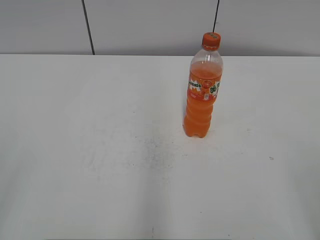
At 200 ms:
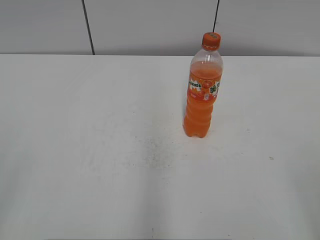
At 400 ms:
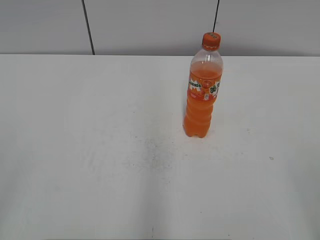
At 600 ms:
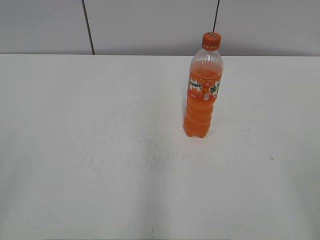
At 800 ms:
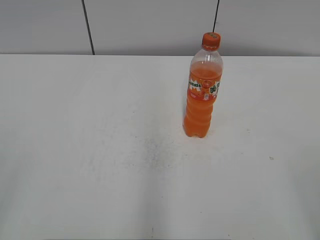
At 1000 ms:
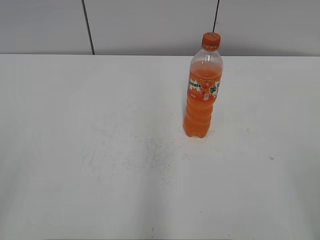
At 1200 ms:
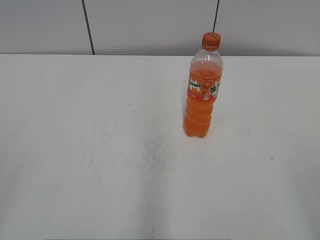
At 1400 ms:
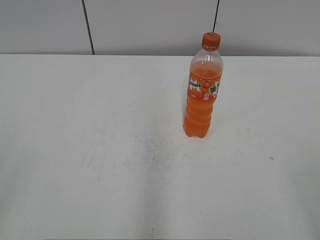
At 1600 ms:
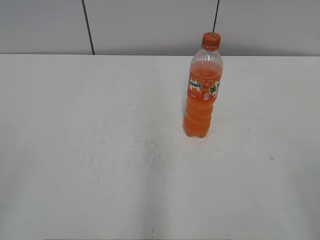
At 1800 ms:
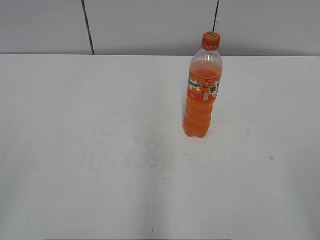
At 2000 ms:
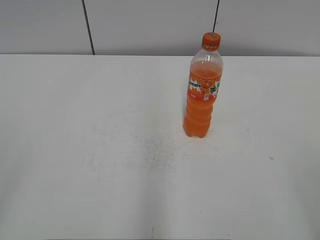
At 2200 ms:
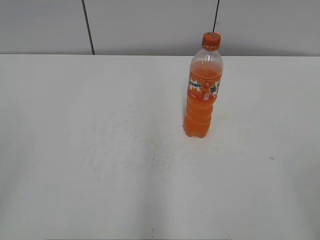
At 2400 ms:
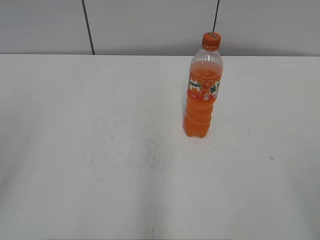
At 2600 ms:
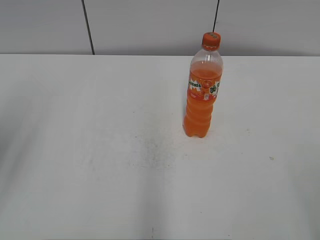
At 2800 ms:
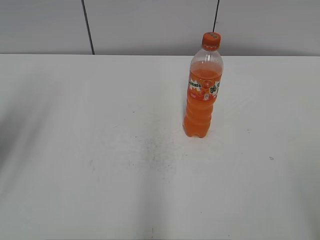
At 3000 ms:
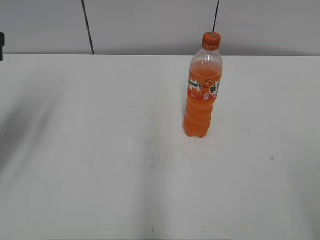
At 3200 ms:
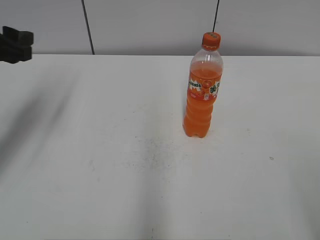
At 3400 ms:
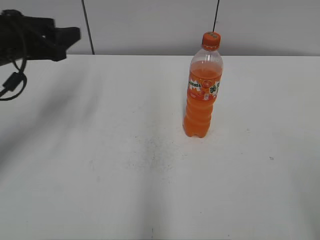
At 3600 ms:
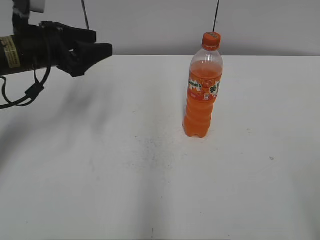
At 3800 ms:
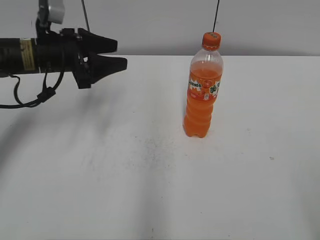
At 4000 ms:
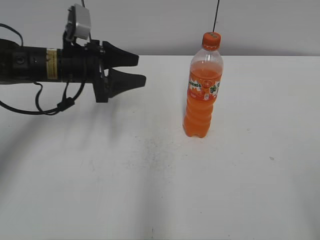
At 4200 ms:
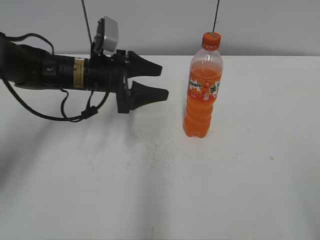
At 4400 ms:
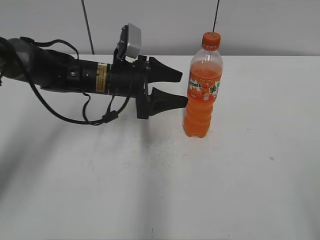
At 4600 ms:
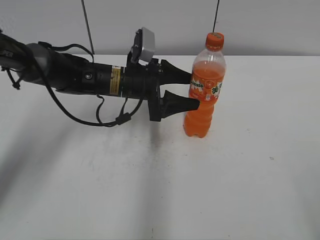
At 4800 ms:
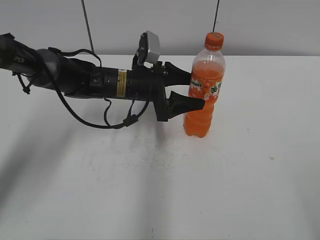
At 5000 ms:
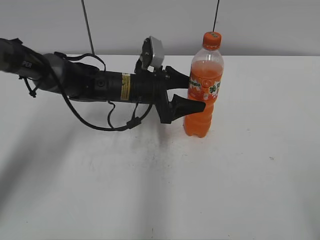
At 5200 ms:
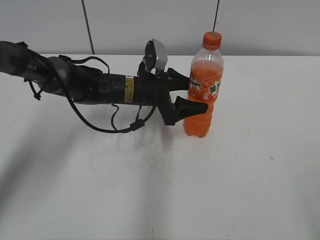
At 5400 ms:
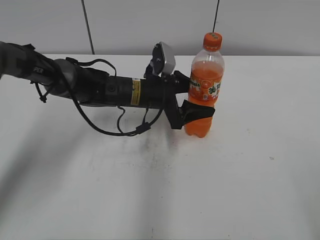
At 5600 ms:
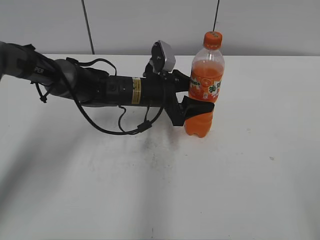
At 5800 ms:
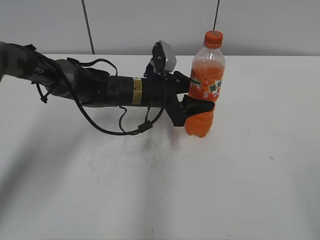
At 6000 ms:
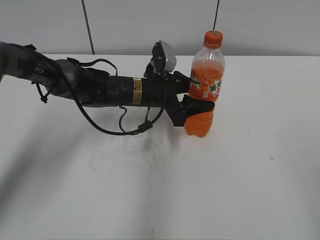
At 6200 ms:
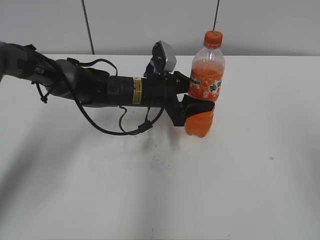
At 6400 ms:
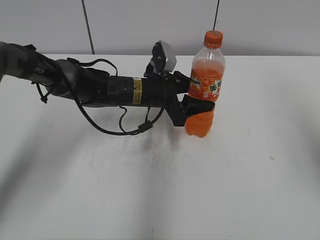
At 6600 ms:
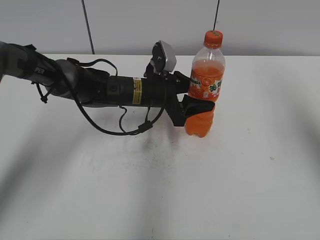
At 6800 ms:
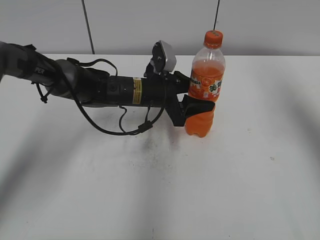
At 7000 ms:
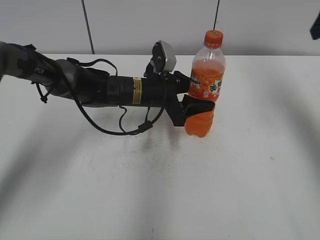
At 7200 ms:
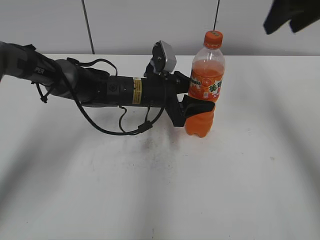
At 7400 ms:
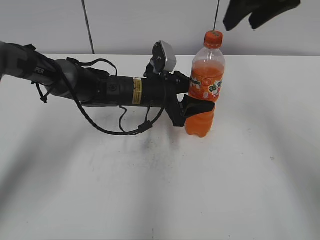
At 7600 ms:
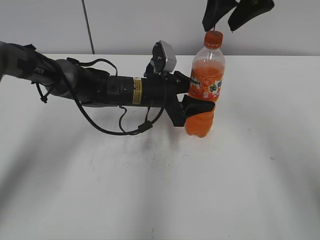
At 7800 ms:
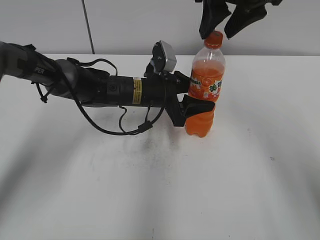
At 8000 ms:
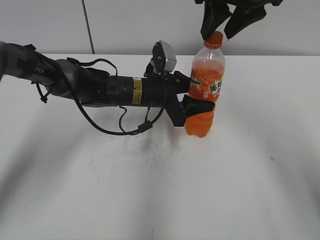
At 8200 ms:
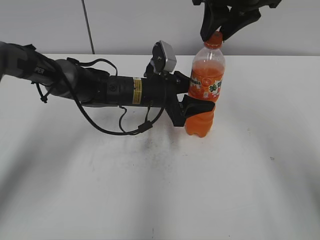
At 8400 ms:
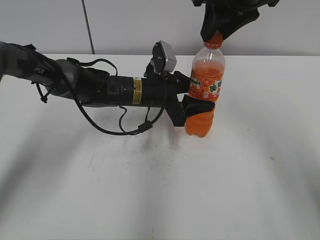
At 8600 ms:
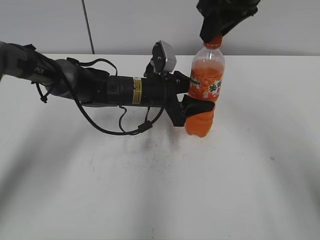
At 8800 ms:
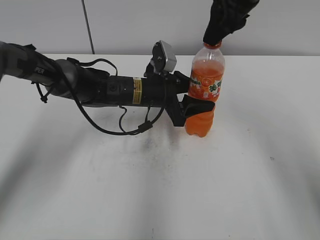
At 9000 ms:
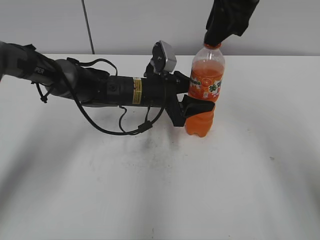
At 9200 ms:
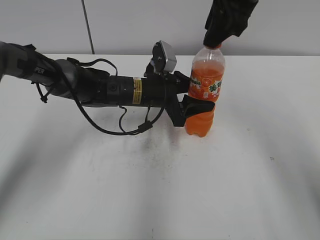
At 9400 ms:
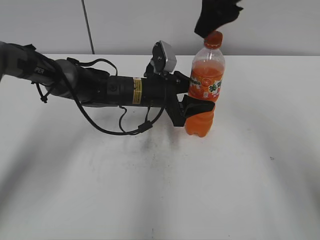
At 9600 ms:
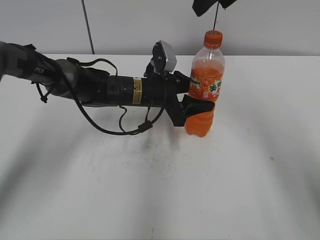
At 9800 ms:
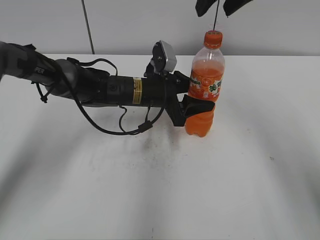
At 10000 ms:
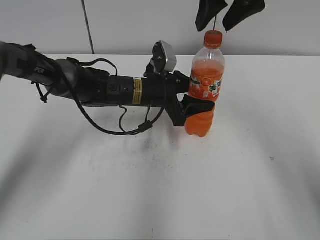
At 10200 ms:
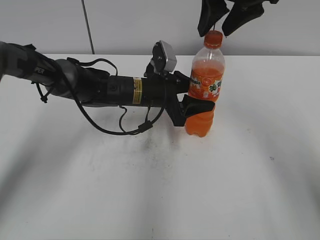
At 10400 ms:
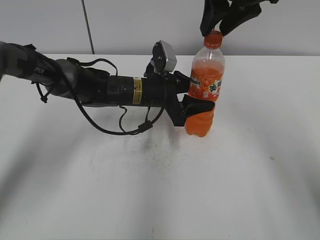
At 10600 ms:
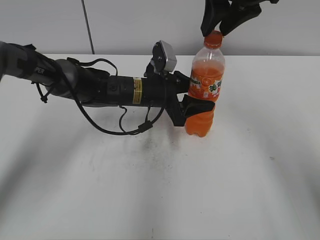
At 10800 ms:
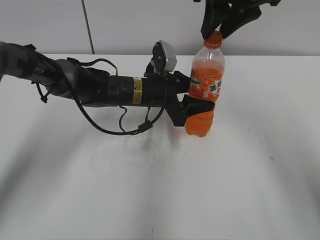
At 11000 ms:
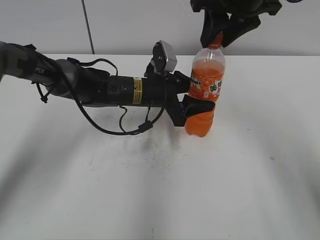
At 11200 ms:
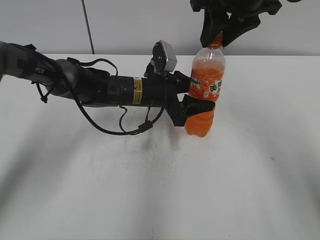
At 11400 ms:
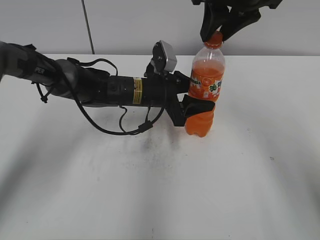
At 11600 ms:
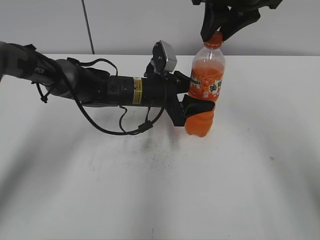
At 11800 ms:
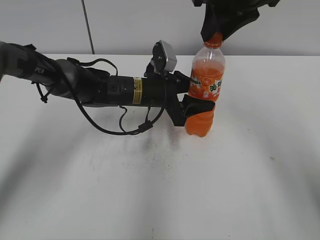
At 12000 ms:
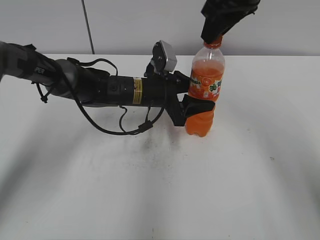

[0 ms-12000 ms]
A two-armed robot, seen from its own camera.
Step, 0 ms to 5600 ms: Grab the Mirinda with the left hand.
1600 ms to 3000 ms: The left gripper travels forward by approximately 25 cm, and closes up.
3000 ms to 4400 ms: The left gripper shifts about 25 cm to the right, forward and downward, and opens.
4400 ms to 6000 ms: The left gripper travels to the right by roughly 5 cm, and closes up.
6000 ms to 7600 ms: The right gripper is displaced forward and to the left by about 40 cm.
7600 ms to 9000 ms: The right gripper closes up.
9000 ms to 10400 ms: The right gripper opens and closes again.

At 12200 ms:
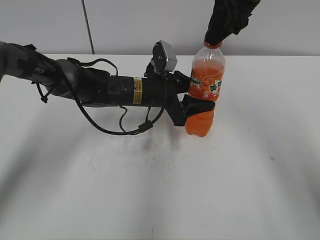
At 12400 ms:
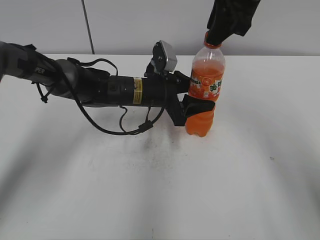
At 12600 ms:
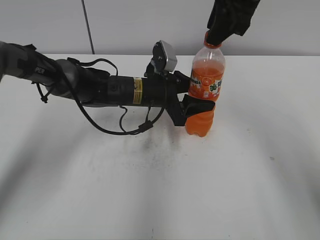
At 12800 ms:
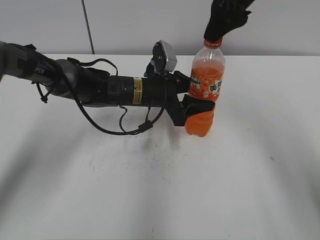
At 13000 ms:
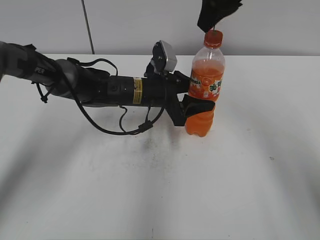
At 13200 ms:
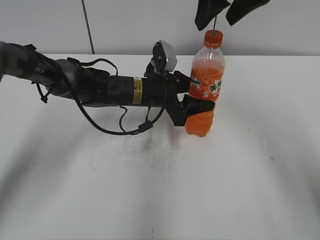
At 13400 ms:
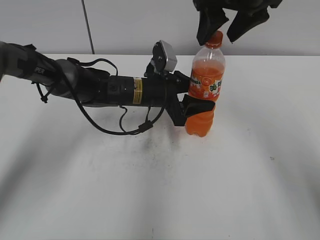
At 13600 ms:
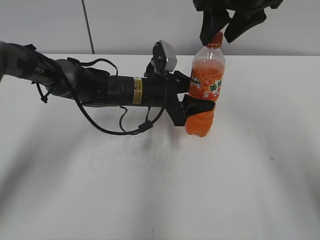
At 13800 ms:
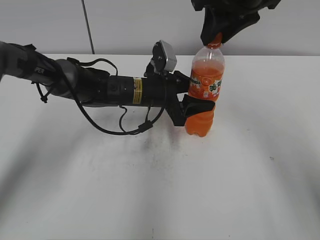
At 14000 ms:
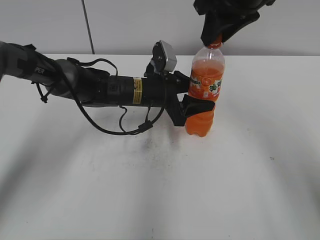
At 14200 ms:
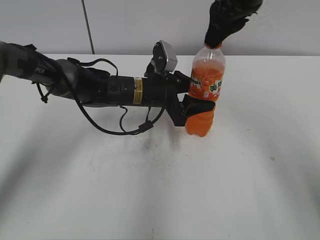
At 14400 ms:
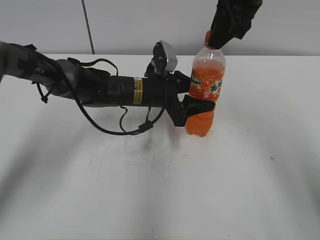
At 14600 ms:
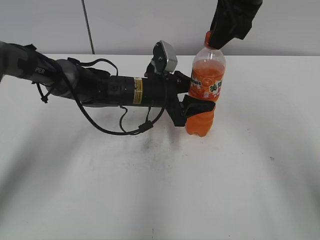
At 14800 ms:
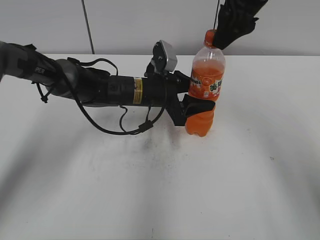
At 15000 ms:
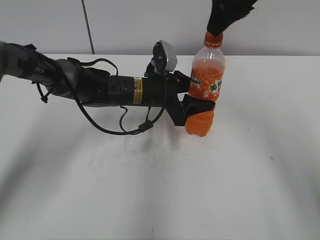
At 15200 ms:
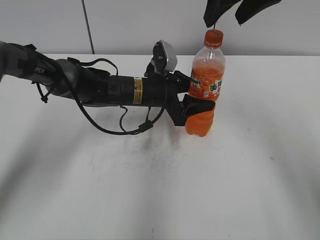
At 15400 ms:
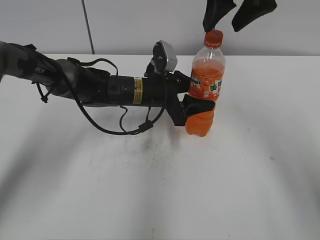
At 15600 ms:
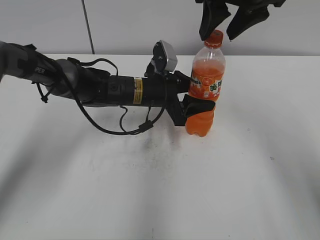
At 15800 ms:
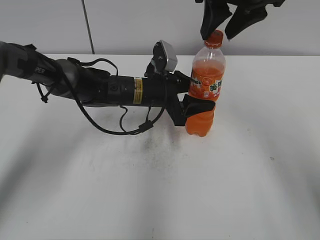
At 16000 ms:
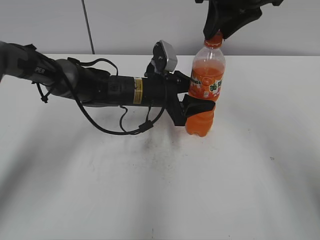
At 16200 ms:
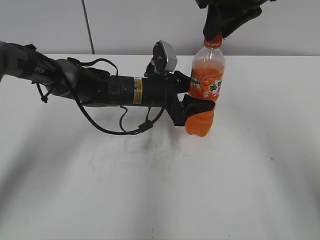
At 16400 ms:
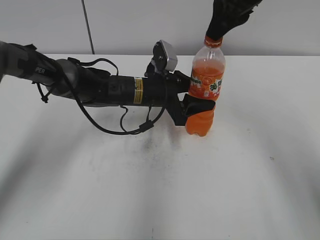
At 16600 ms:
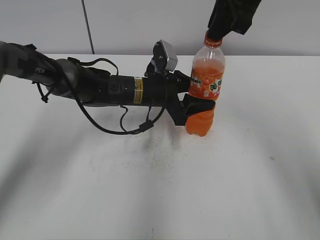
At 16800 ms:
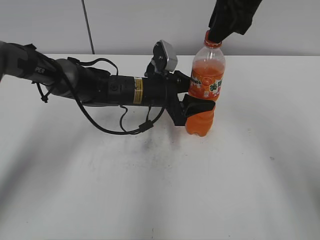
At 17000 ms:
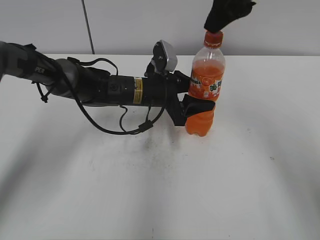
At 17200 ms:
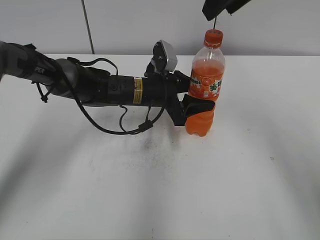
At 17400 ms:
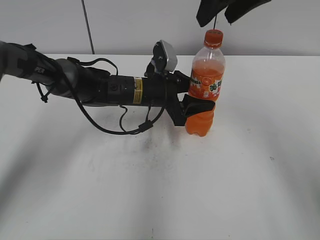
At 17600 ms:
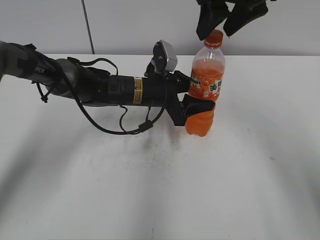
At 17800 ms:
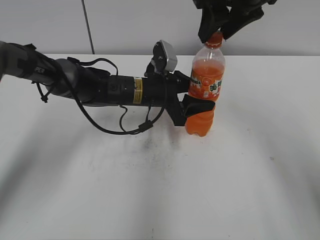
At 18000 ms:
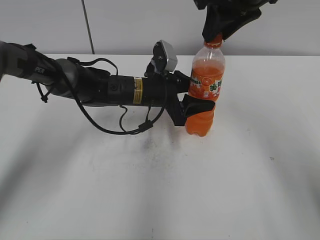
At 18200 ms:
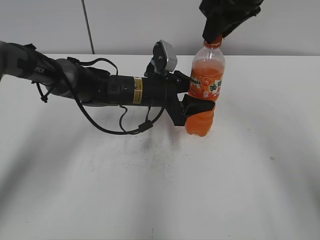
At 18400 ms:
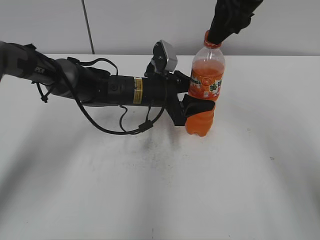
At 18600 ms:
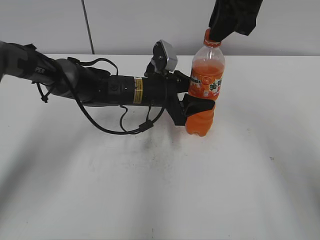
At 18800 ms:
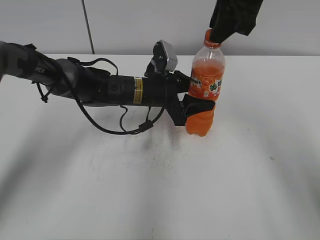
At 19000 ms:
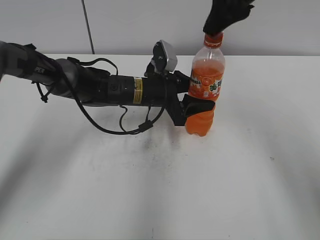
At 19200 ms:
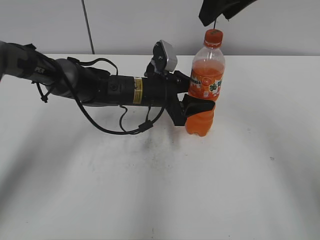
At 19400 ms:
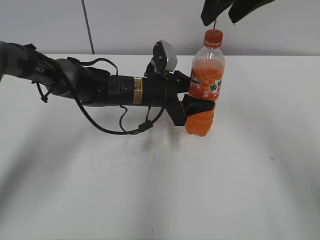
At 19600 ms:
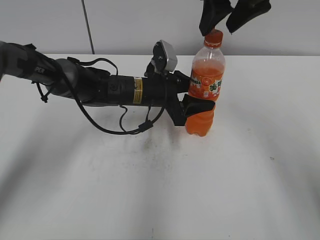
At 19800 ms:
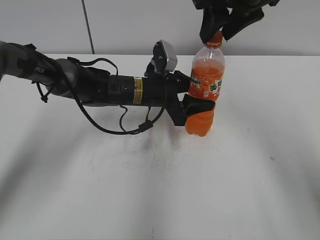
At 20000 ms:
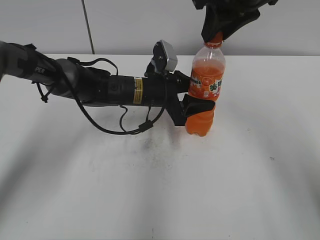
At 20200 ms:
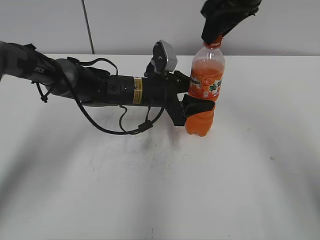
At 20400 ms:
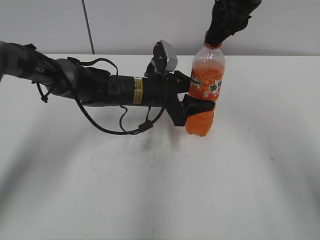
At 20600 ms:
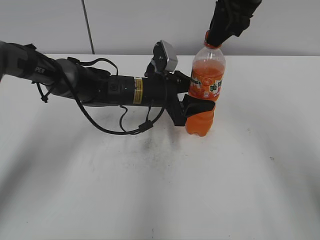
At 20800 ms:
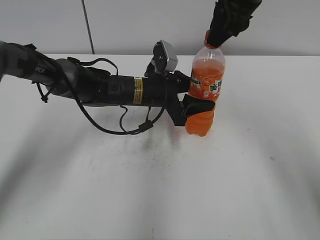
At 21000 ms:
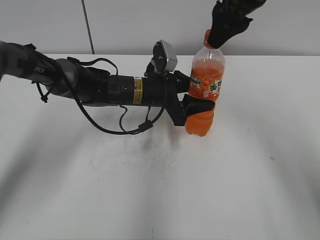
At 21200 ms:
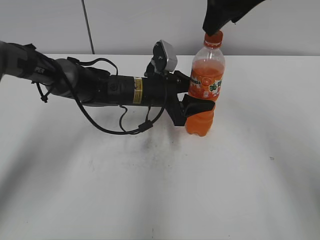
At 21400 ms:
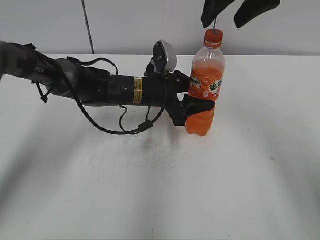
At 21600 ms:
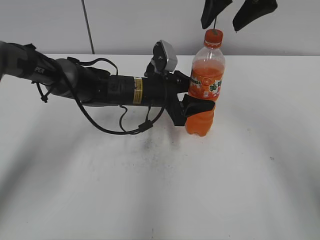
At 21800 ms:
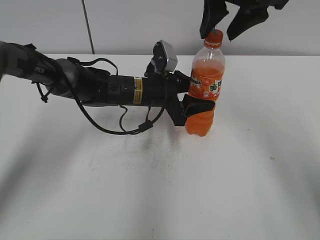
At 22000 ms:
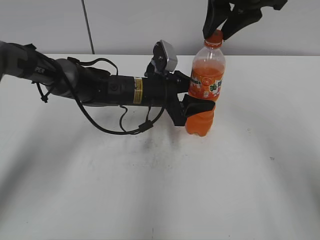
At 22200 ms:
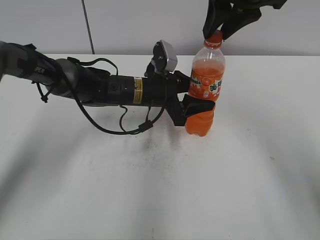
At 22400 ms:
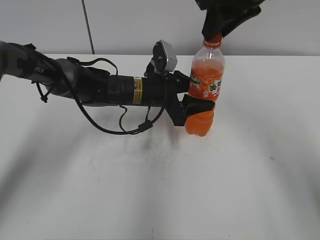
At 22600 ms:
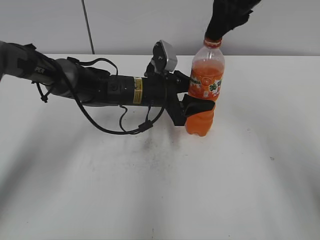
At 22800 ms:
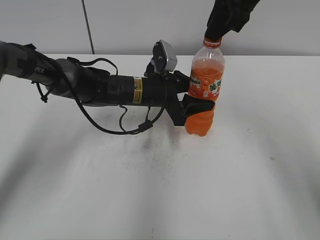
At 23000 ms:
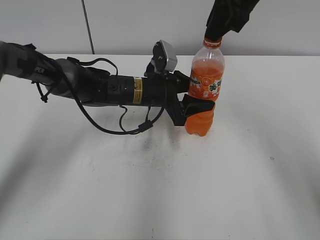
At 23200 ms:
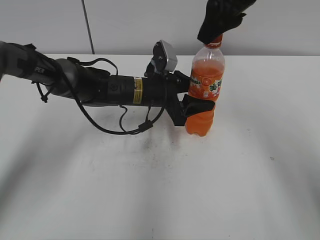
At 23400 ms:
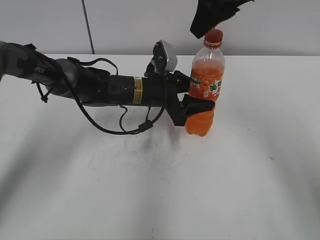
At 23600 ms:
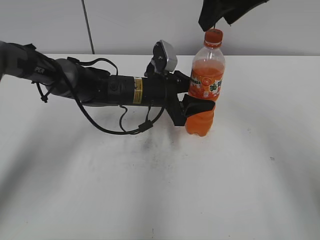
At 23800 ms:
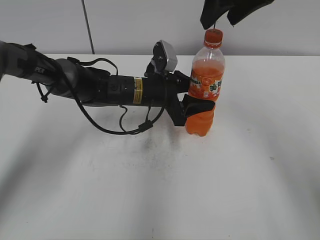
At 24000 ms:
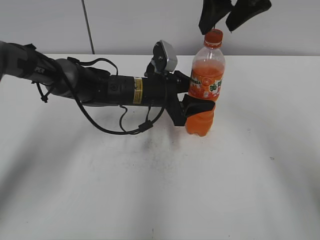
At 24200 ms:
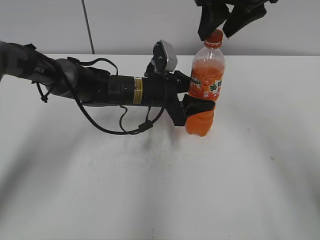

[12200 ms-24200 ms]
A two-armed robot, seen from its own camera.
12200 ms to 13800 ms: The right gripper opens, then closes again.
13800 ms to 15200 ms: The right gripper opens its fingers.
15200 ms to 16600 ms: The right gripper closes its fingers.
16600 ms to 18200 ms: The right gripper opens, then closes once more.
18200 ms to 19800 ms: The right gripper opens up.
19800 ms to 21200 ms: The right gripper closes and opens again.
21200 ms to 22600 ms: The right gripper closes its fingers.
22600 ms to 24200 ms: The right gripper opens its fingers.
